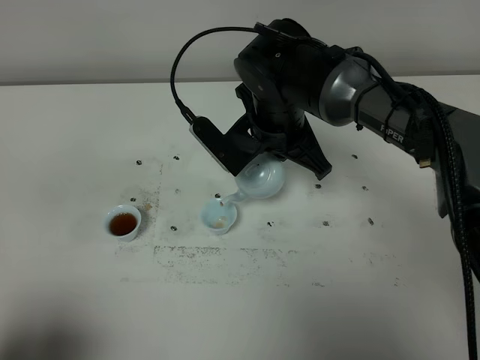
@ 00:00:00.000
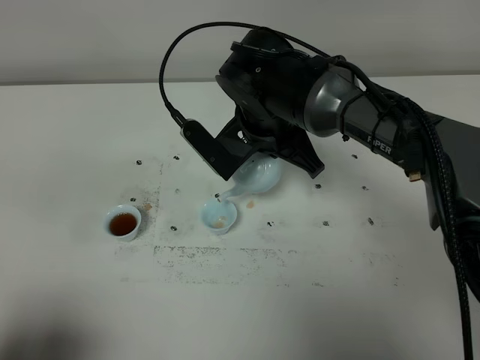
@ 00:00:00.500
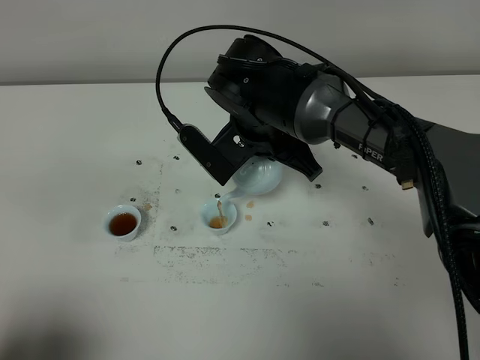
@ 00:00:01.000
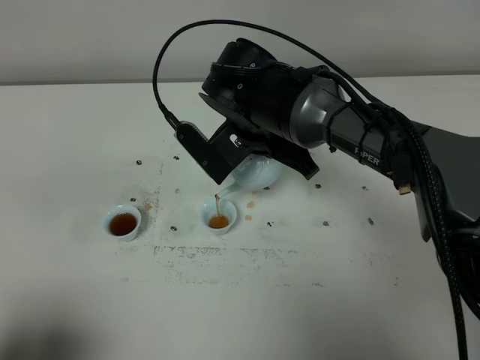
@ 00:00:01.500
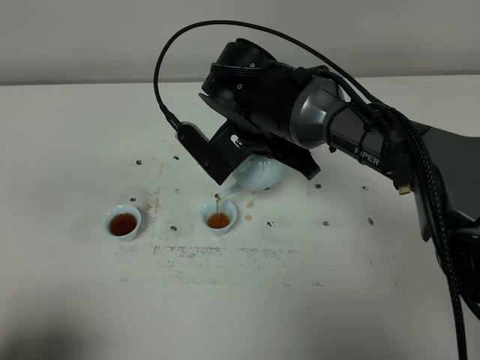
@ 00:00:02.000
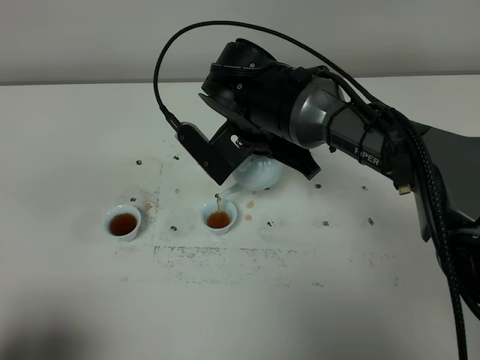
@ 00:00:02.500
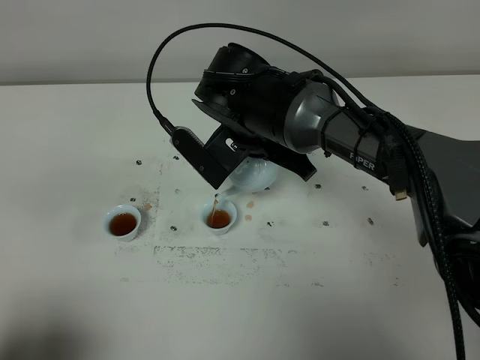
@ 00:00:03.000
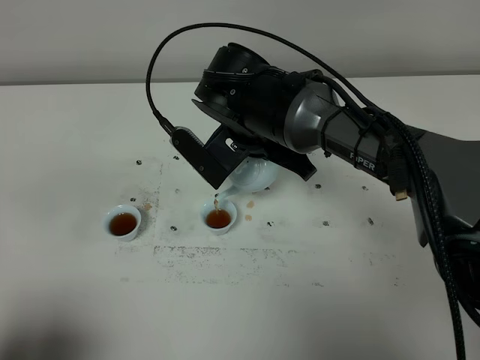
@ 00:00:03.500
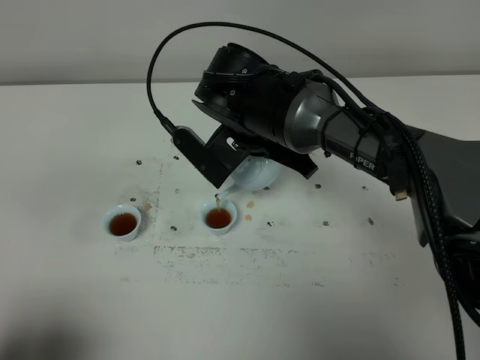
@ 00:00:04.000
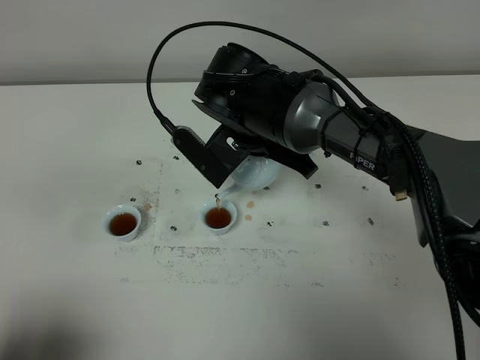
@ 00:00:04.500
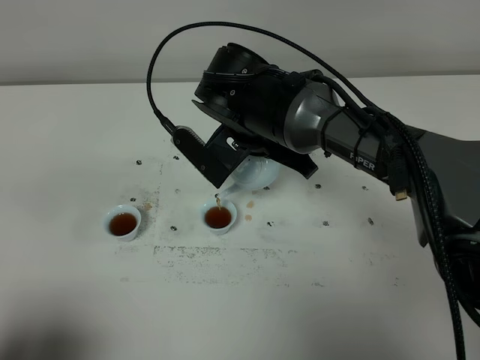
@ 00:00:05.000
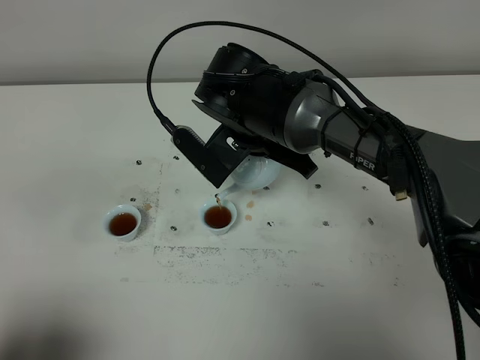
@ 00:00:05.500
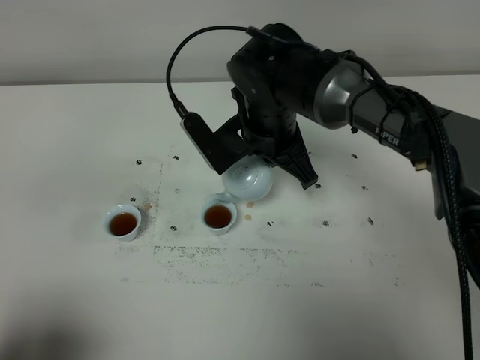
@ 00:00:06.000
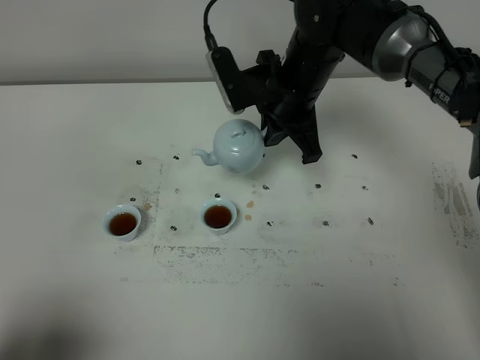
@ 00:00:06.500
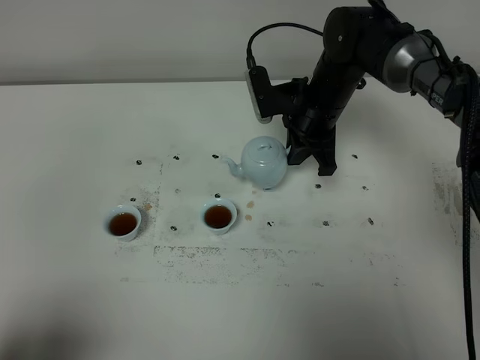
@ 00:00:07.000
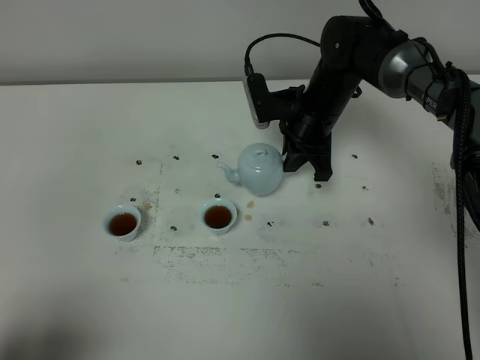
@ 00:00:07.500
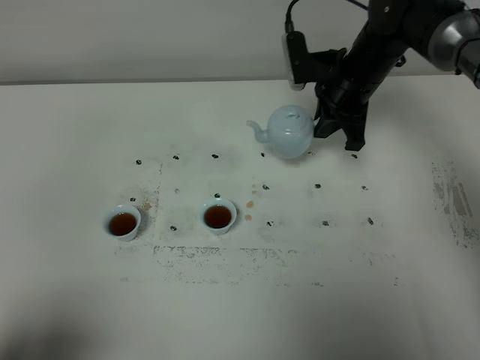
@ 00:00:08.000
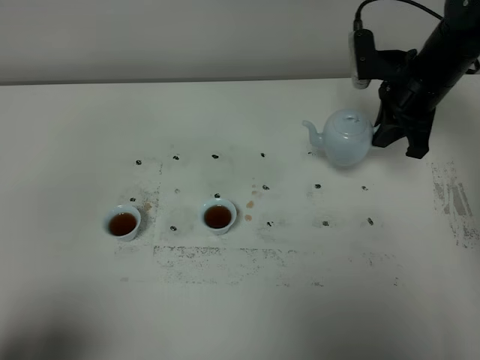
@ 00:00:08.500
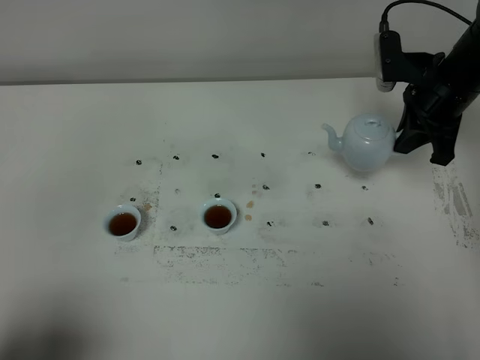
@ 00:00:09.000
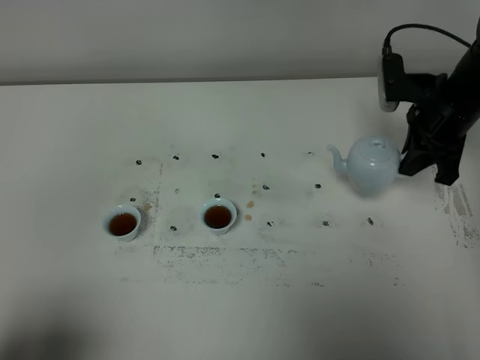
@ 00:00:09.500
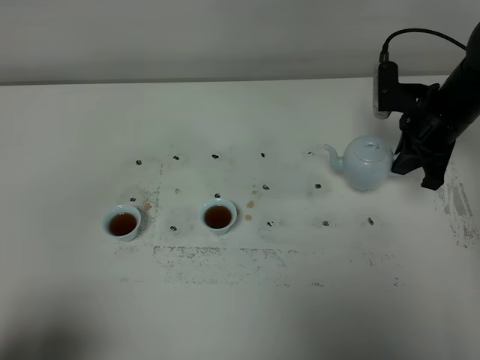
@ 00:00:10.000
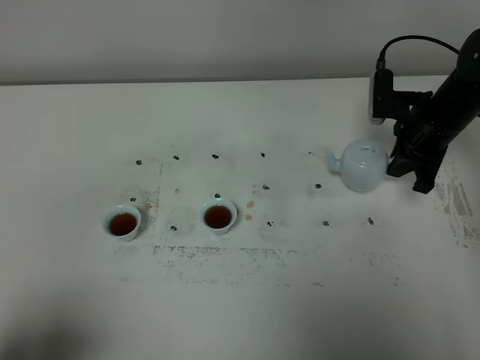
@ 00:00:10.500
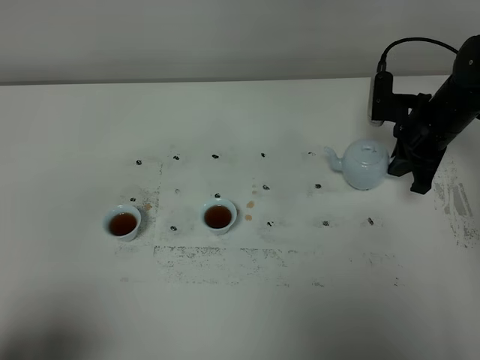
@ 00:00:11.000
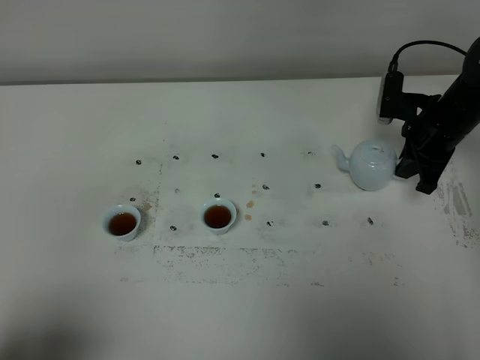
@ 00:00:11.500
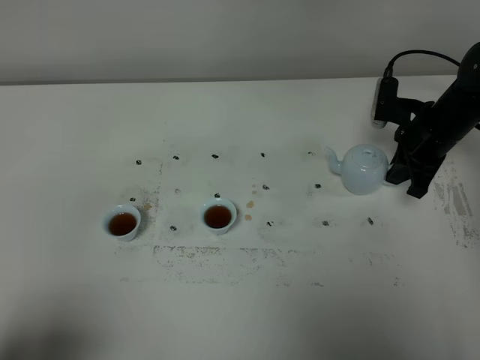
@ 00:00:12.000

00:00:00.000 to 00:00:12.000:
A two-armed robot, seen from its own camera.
Task of the whole recording: grasp the blue porcelain teapot and pour the tea into the two blue porcelain teacups one by one, put the blue porcelain teapot back in its original place.
Step, 00:00:00.000 to 00:00:06.000: Pour tea into the teacup with the right gripper.
00:00:00.000 to 00:00:02.000: The grippers make only small movements.
00:00:02.000 to 00:00:04.000: The two grippers keep their place.
00:00:04.000 to 00:00:06.000: The grippers stay close to where they were, moving slightly.
00:00:06.000 to 00:00:08.000: The right gripper is displaced to the right and forward by about 15 cm.
00:00:08.000 to 00:00:10.000: The right gripper travels to the right and backward by about 10 cm.
00:00:10.000 to 00:00:12.000: The grippers stay close to where they were, moving slightly.

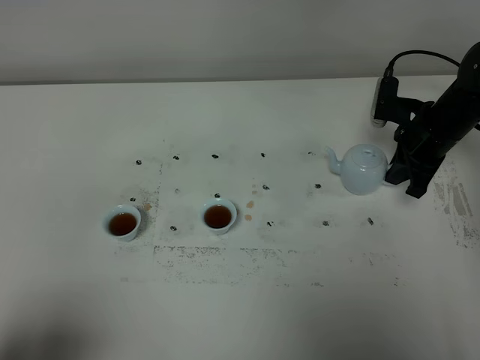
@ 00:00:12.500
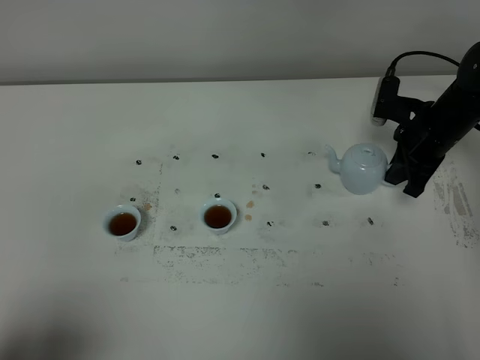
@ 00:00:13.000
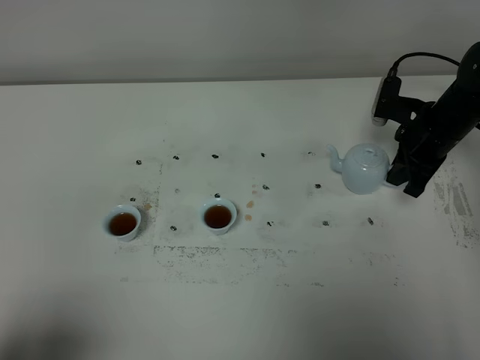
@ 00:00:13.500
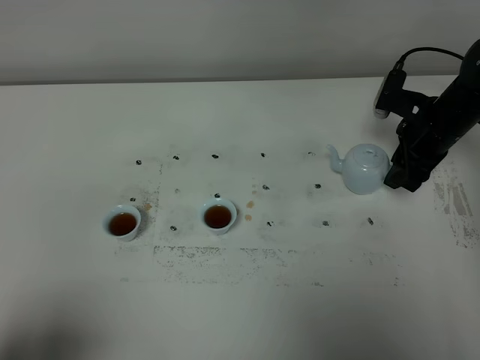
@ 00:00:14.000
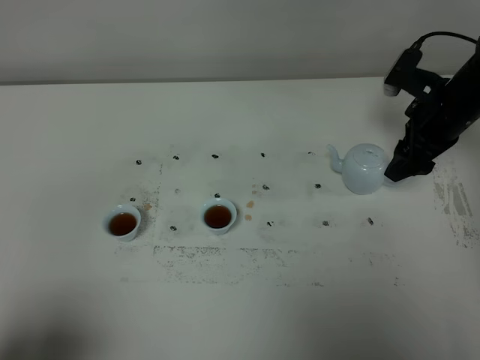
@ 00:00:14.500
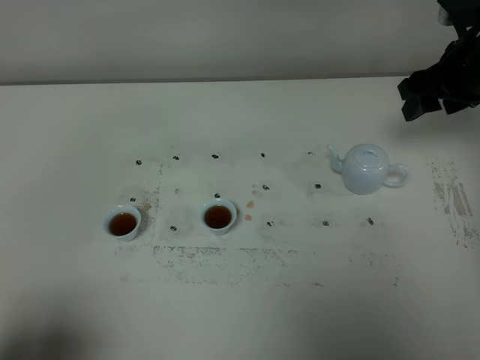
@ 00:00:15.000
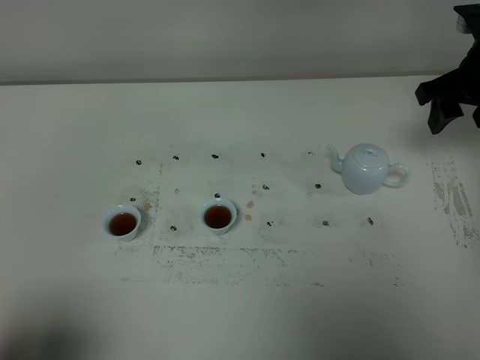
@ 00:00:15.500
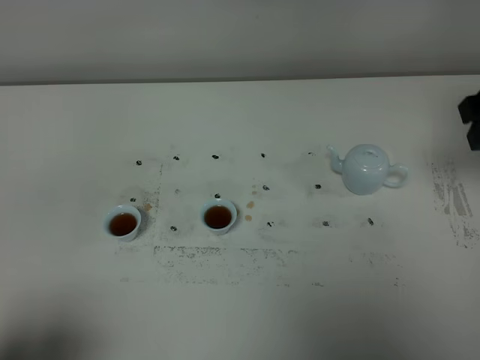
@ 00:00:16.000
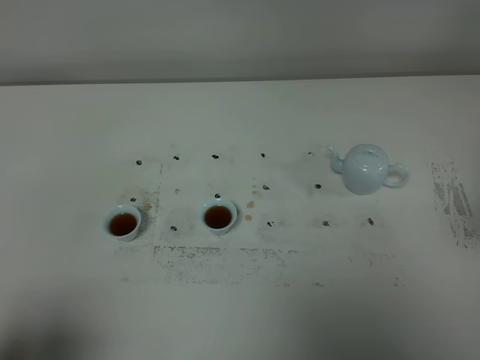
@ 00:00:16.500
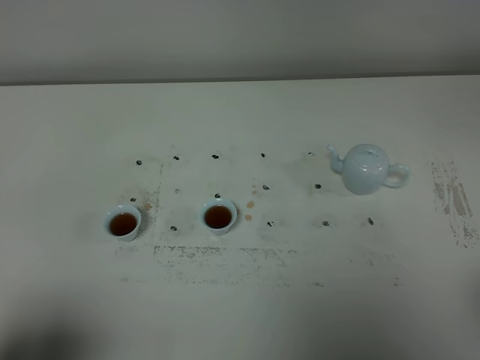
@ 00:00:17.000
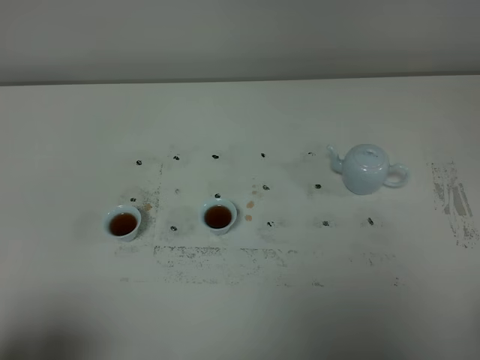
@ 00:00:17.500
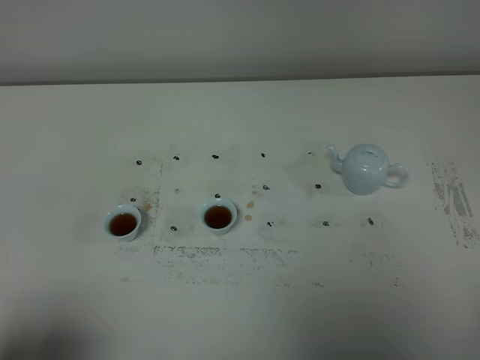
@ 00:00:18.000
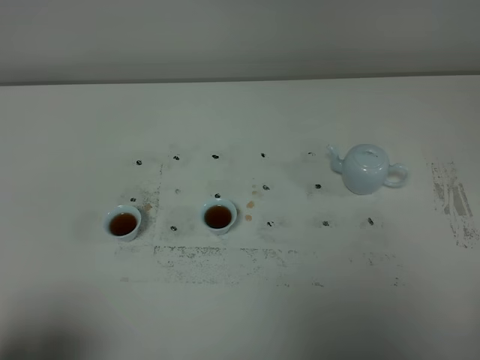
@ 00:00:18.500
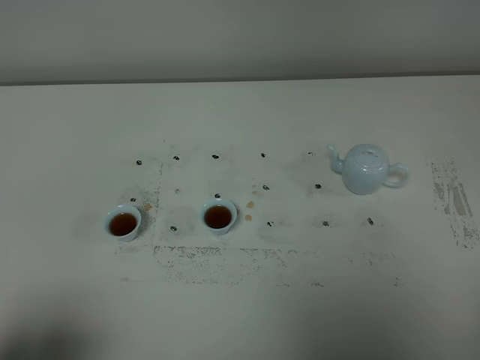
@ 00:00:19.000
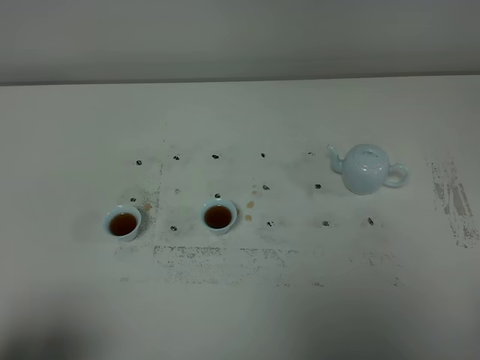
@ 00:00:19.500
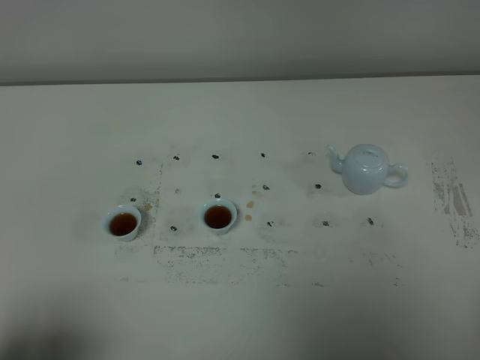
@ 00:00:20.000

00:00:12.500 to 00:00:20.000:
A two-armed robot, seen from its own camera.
Task of the whole recording: grasp the blue porcelain teapot and pour the tea into the two blue porcelain teacups one by one, put the blue porcelain teapot back in its original place.
00:00:12.500 to 00:00:14.500: The right gripper is displaced upward by approximately 5 cm, and opens its fingers.
00:00:14.500 to 00:00:16.500: The right gripper moves backward and upward, about 30 cm.
00:00:18.000 to 00:00:20.000: Both grippers stay about where they are.

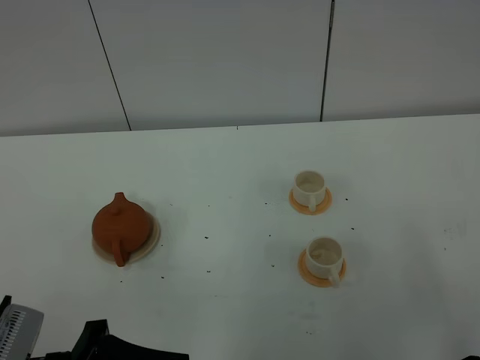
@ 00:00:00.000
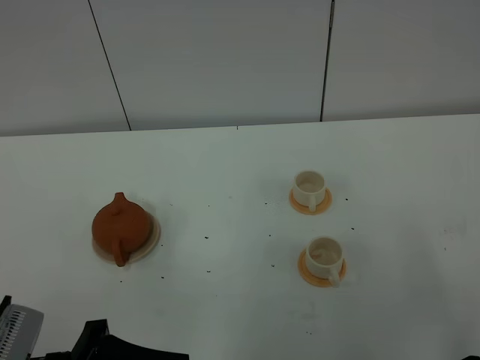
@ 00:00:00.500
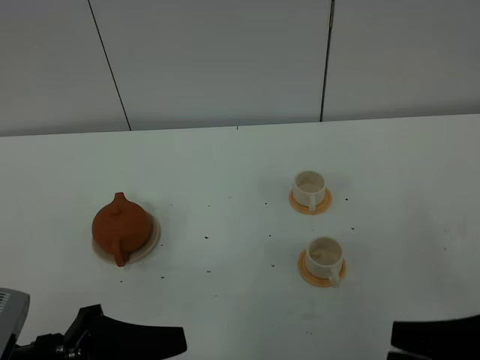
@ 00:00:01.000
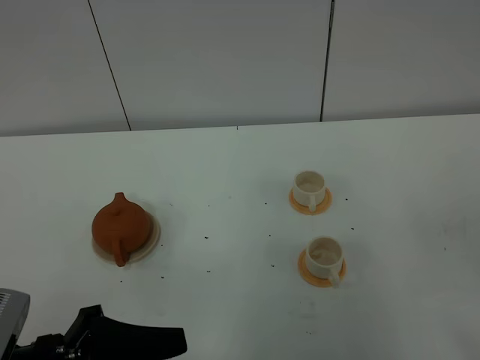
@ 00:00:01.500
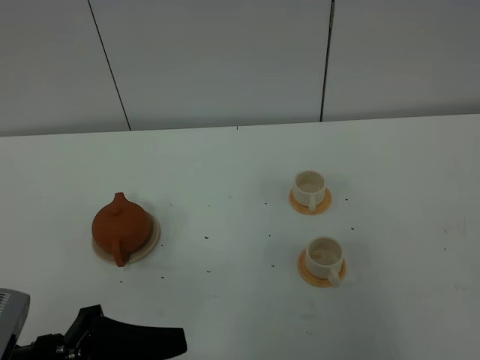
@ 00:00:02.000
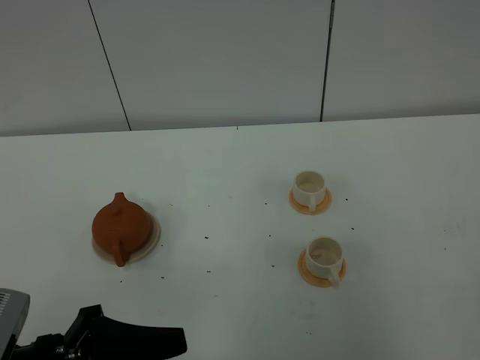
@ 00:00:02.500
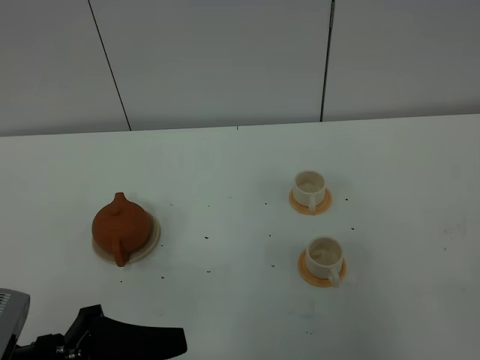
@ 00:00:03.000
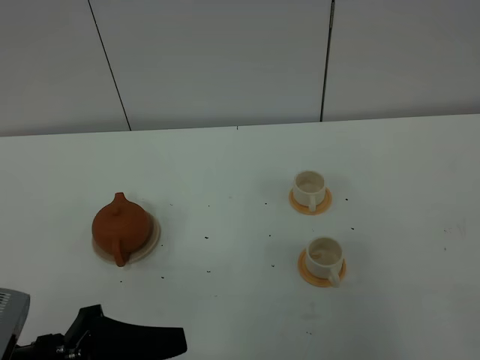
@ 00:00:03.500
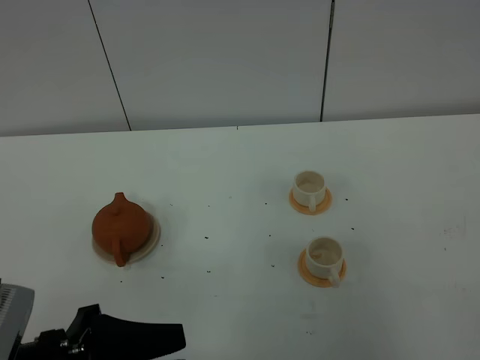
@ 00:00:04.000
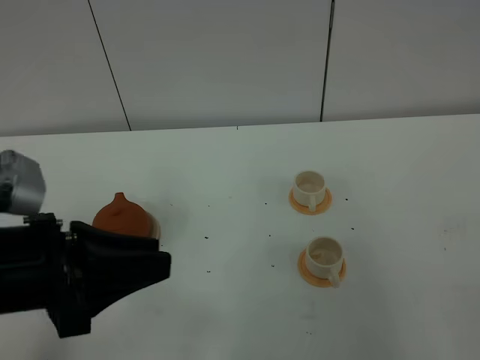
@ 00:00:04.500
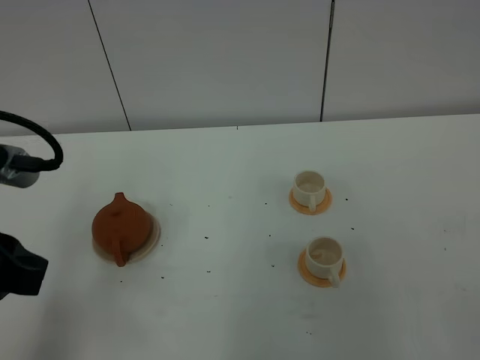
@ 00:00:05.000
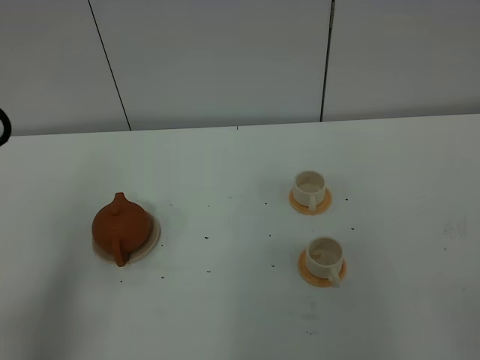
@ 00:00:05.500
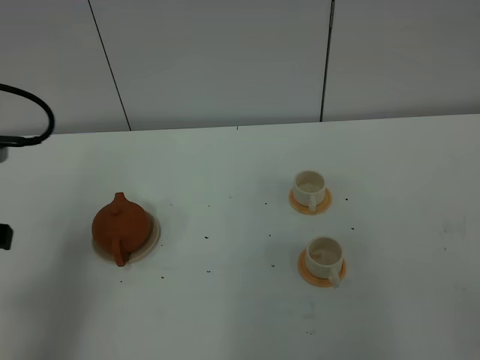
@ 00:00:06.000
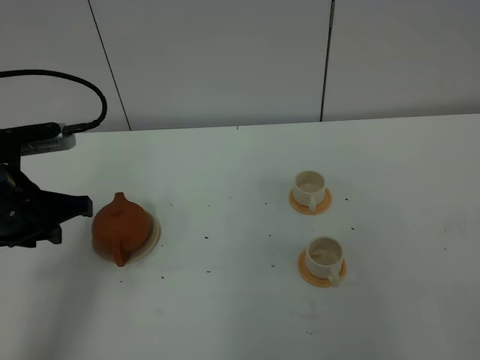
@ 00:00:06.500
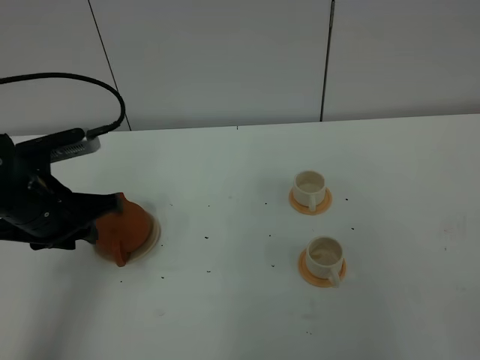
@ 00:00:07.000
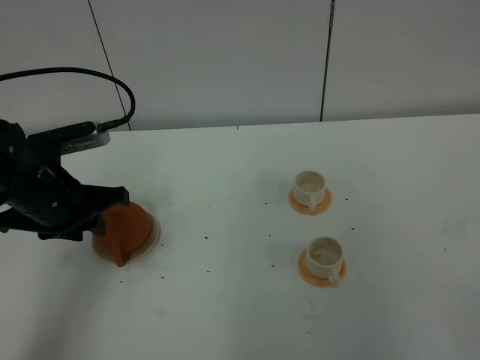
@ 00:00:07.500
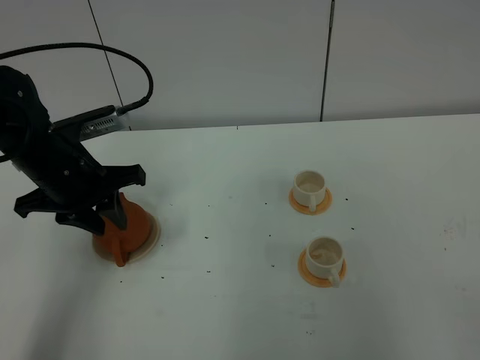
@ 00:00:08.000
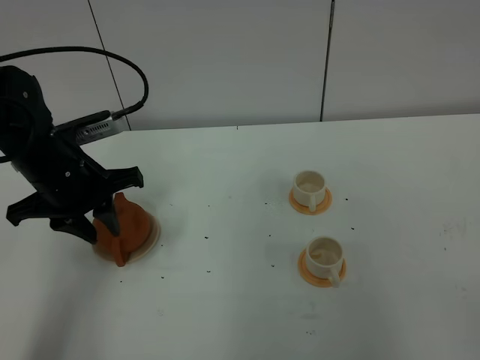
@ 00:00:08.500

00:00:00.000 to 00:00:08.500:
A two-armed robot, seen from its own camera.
Task of the whole recording: grasp the brown teapot and pour the tea into the two white teacups one by one, put the brown teapot back in its original place.
00:00:04.000 to 00:00:06.500: The left gripper moves forward, some 20 cm.
00:00:06.500 to 00:00:08.500: The left gripper heads forward, covering about 5 cm.